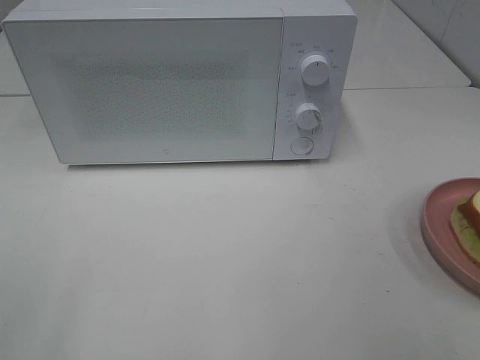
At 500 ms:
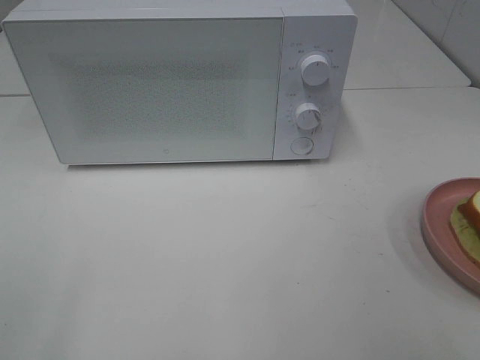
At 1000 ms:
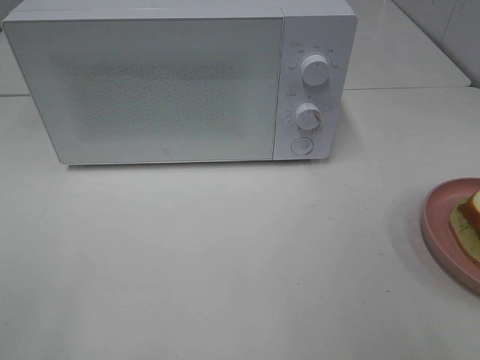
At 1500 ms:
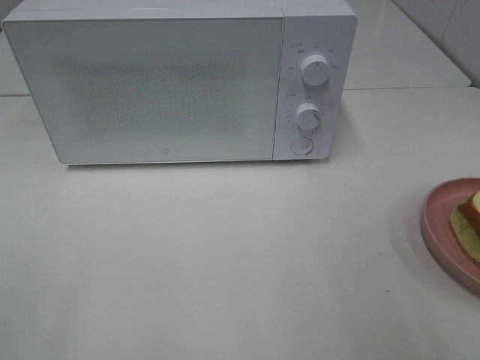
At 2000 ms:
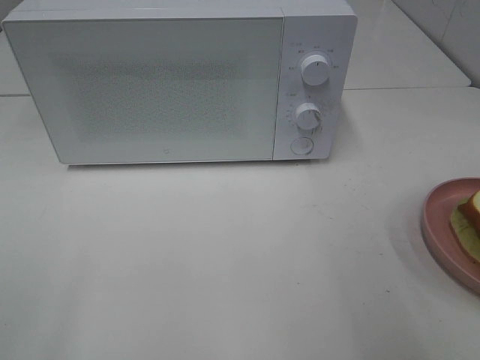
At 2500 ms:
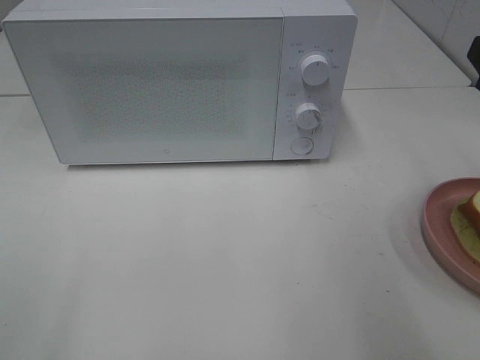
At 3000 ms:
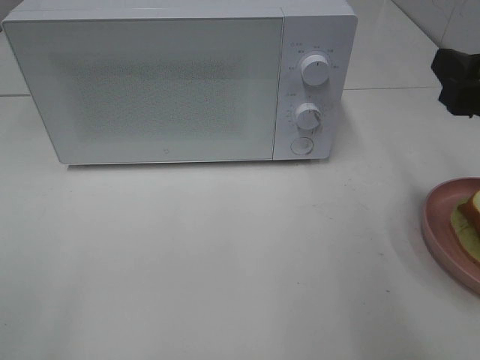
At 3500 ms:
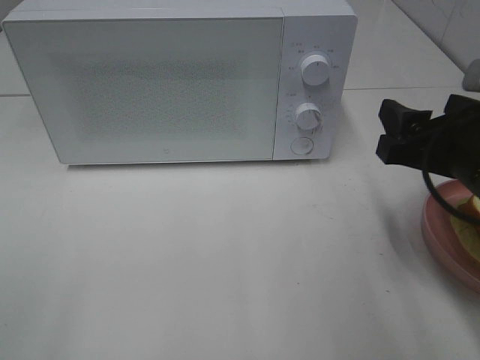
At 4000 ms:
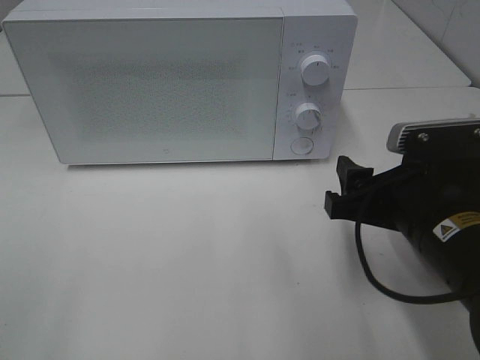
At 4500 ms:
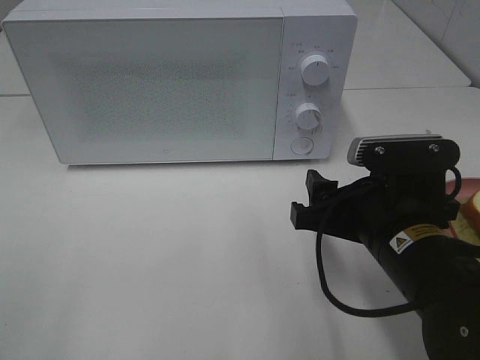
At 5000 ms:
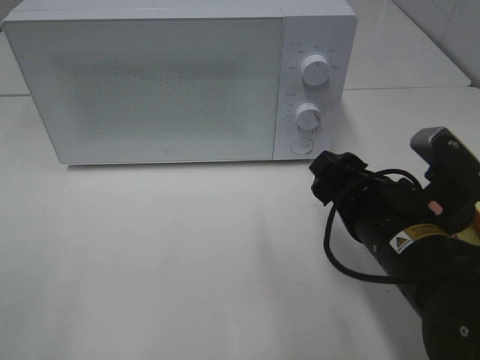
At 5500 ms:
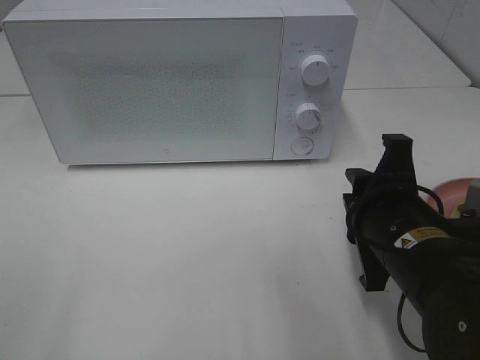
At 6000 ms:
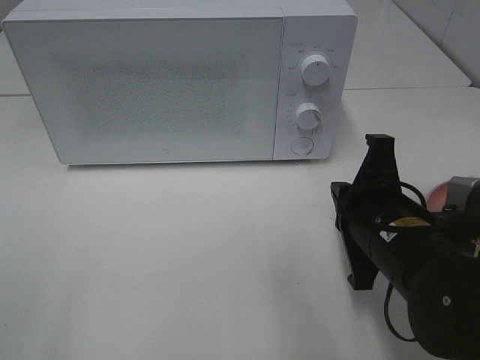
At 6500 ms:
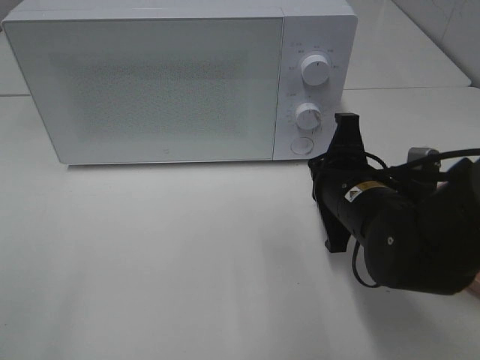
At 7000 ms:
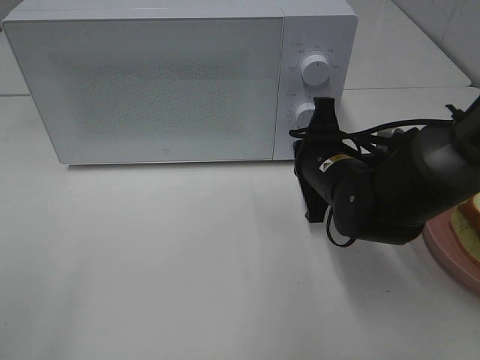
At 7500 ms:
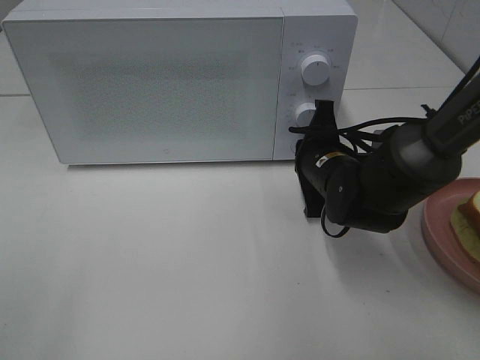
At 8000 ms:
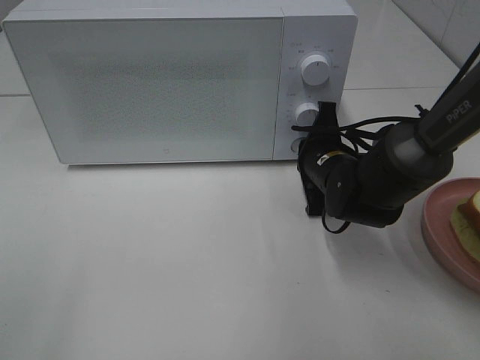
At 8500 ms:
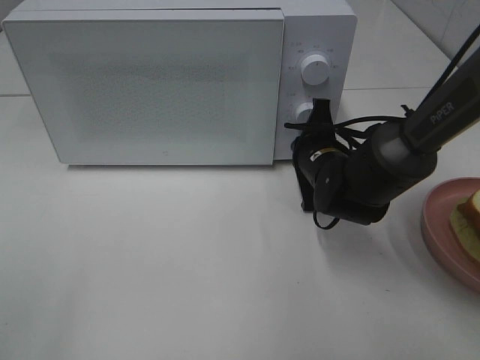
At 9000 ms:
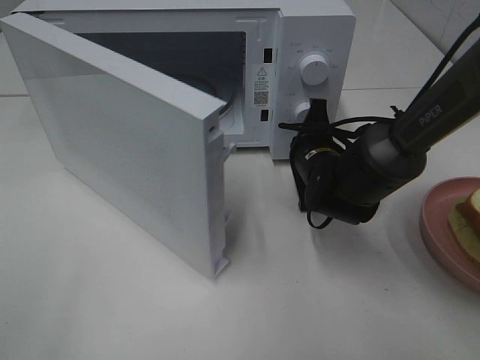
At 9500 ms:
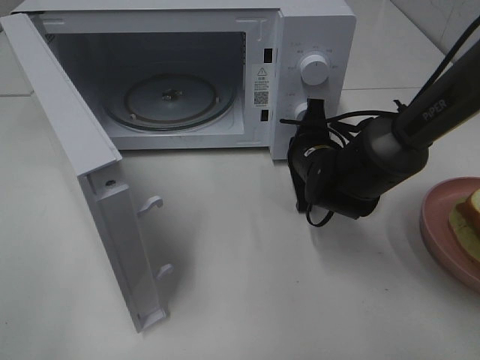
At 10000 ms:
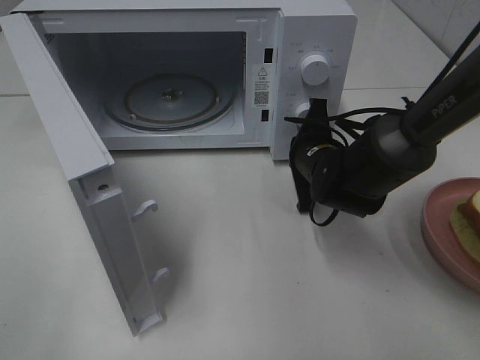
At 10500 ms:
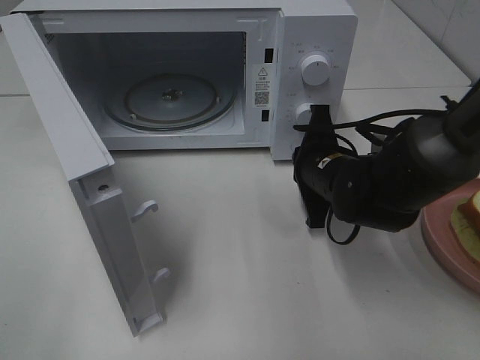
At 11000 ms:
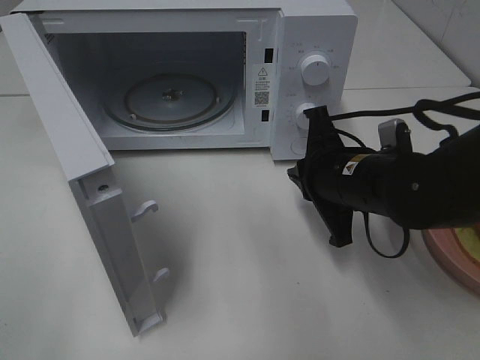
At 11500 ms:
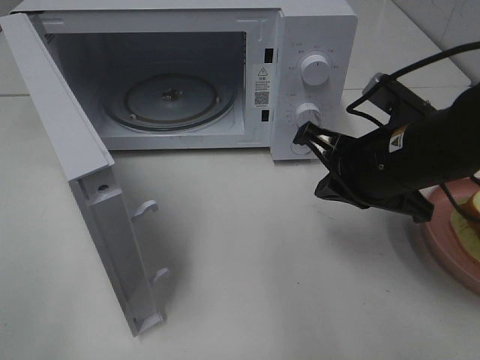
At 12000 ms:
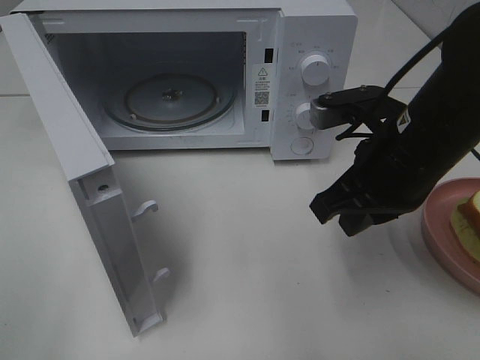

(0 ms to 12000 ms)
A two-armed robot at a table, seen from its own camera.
Task of the whole recording: Heat Sandwich.
Step, 0 ms - 10000 ms: Right hand: press the switch.
2000 ms - 4000 ms: The right gripper heads downward and to the left, covering some 15 cm.
4000 ms - 6000 ms: The right gripper closes.
6000 ms - 8000 ms: The right gripper is displaced forward by about 15 cm.
10000 ms - 12000 ms: The right gripper moves upward and backward, approximately 15 cm.

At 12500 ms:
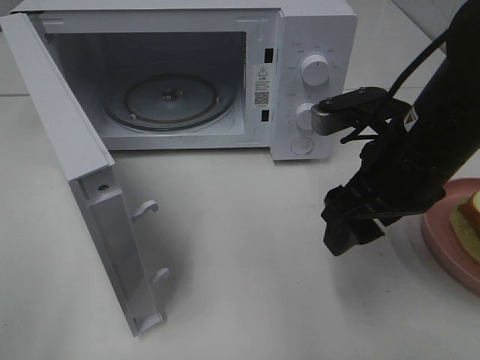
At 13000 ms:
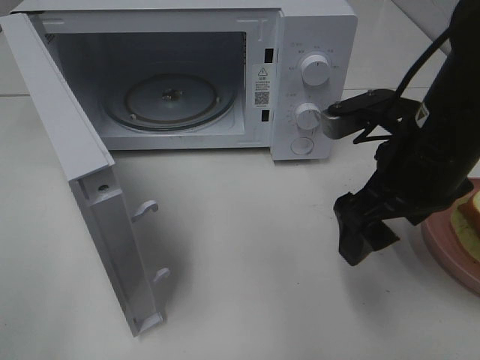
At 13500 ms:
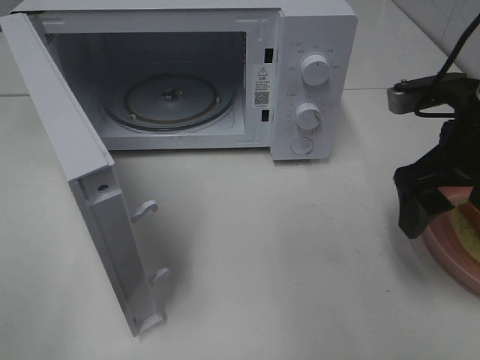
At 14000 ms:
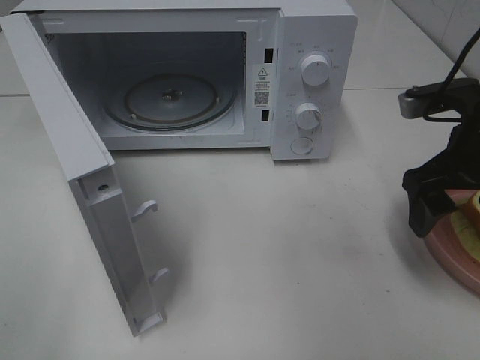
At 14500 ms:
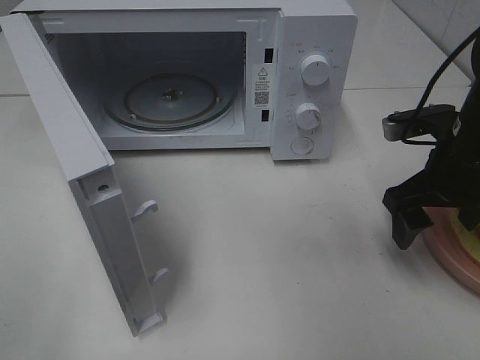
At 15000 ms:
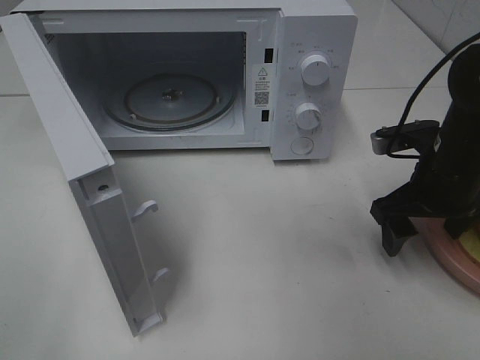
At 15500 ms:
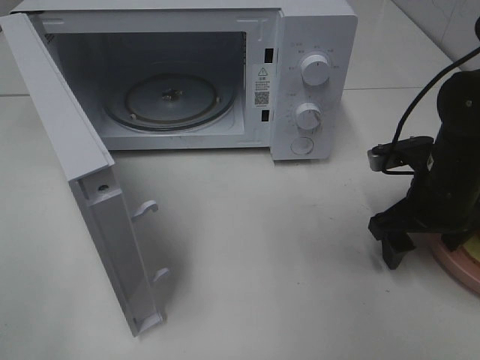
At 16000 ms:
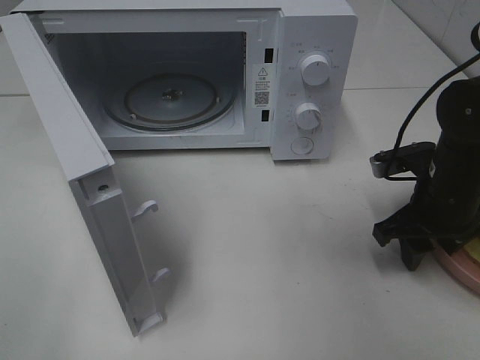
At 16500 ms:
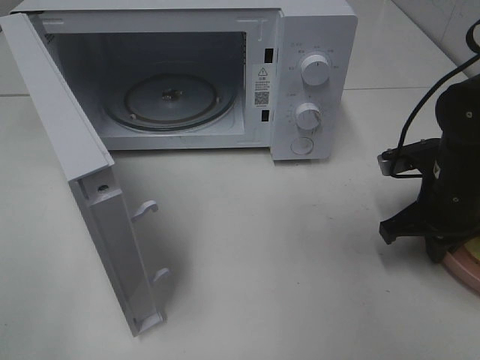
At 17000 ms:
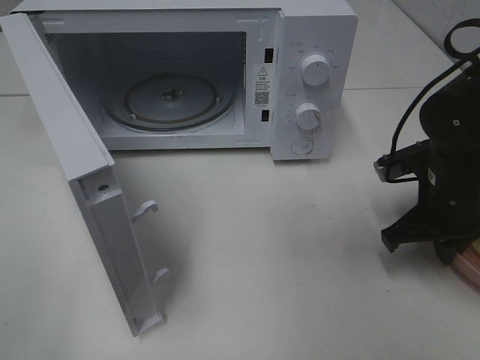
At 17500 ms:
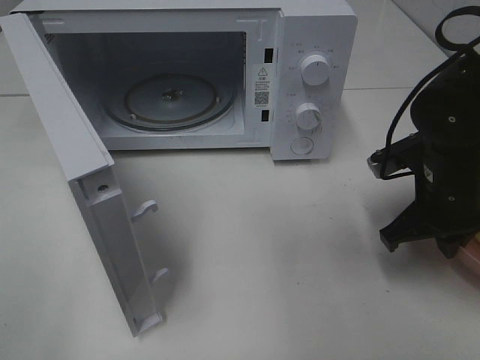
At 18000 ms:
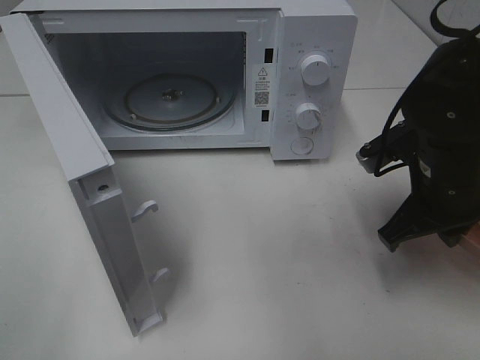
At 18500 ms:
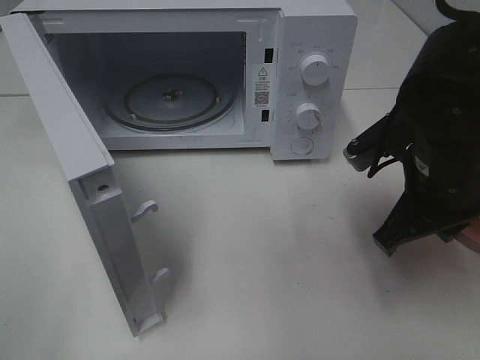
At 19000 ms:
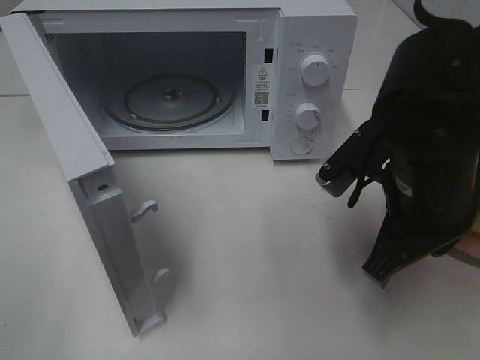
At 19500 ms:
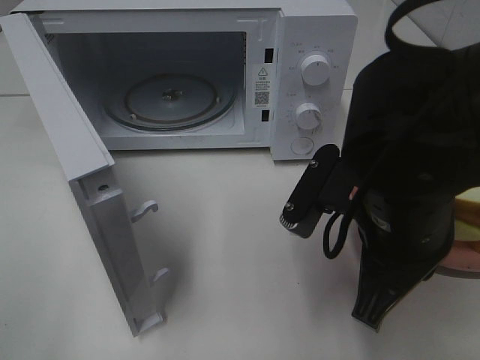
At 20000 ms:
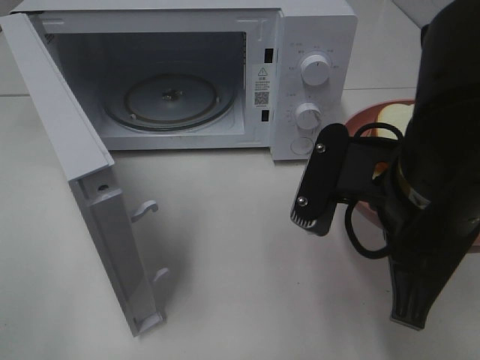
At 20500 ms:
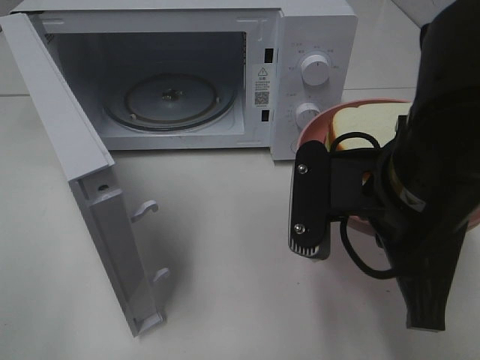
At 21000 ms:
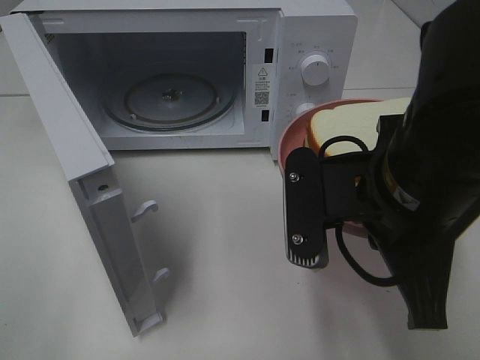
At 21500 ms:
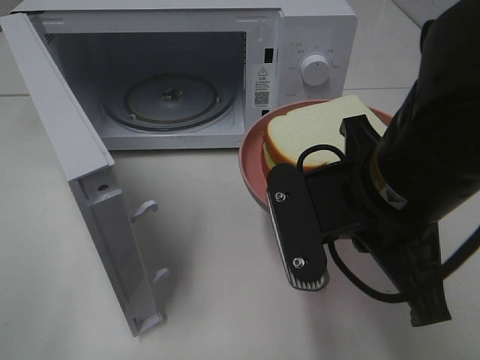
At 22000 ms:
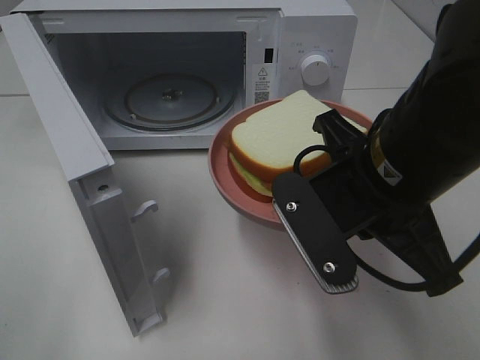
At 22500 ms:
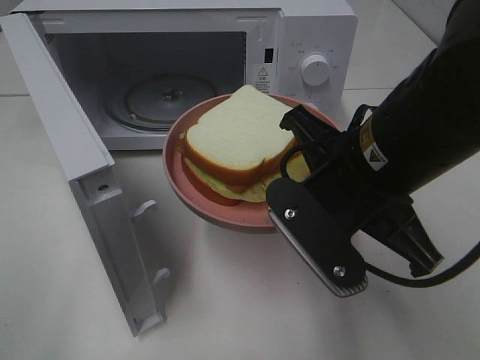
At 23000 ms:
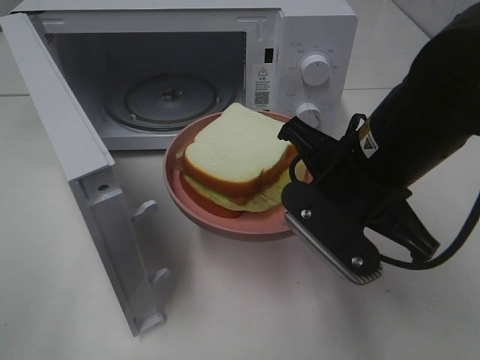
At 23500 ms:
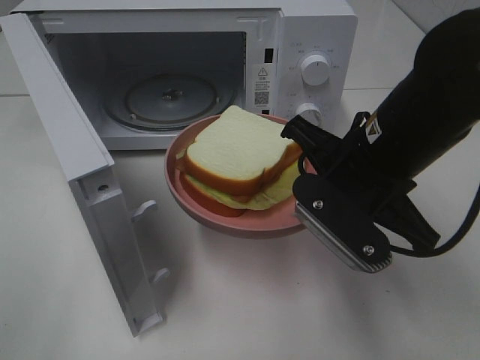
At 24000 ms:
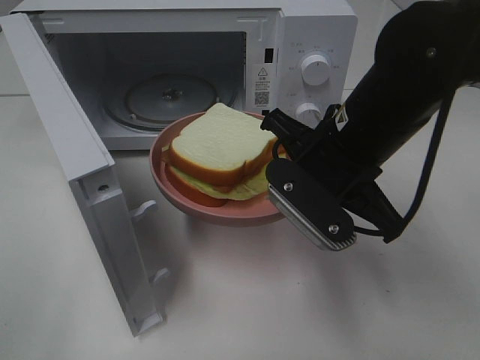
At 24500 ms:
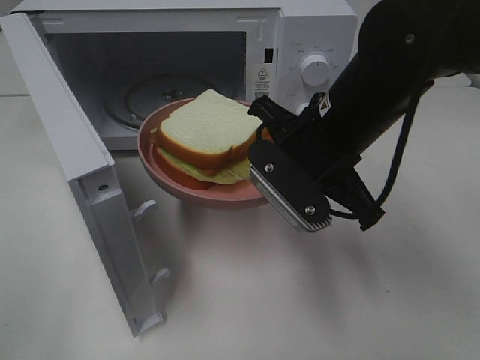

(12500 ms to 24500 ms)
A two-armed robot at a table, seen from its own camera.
Task of the whole recording: Heat Sandwich.
Step, 12500 ms - 16500 ms: Right hand: grab the plate with the sandwich.
12500 ms - 14500 ms: The right gripper travels to the right by some 10 cm.
14500 ms - 16500 ms: The right gripper moves downward, some 5 cm, and closes.
16500 ms - 18500 ms: The right gripper shifts about 10 cm upward and to the left.
18500 ms - 20500 ms: The right gripper moves backward and to the left, roughly 10 cm.
22500 ms - 24500 ms: The right gripper heads forward, covering approximately 5 cm.

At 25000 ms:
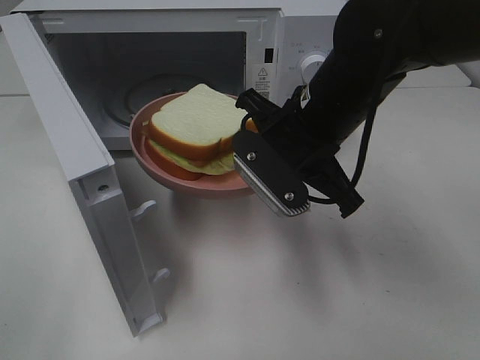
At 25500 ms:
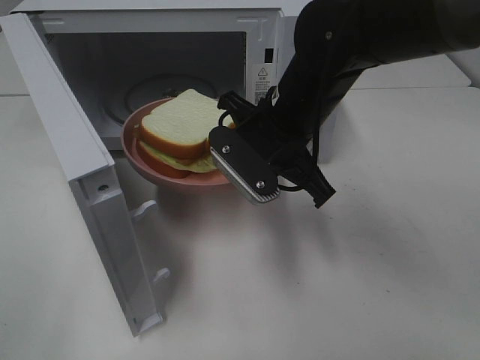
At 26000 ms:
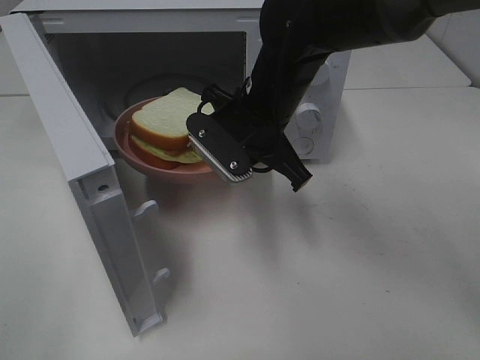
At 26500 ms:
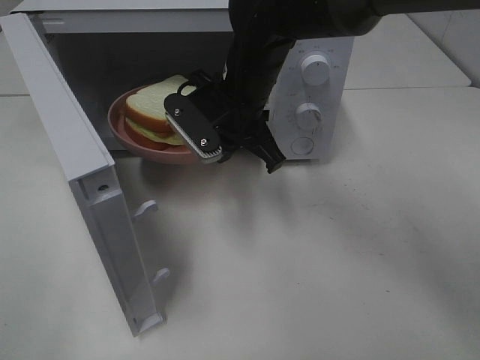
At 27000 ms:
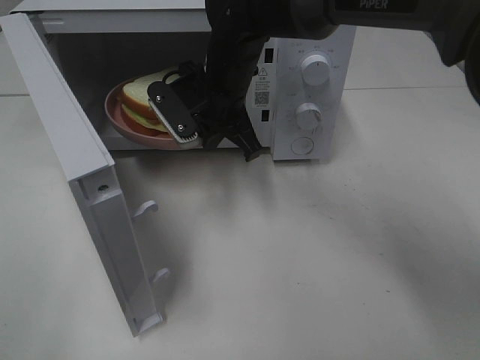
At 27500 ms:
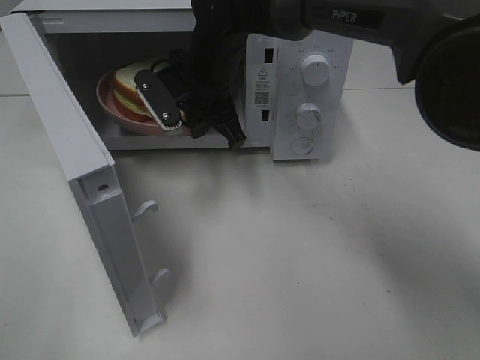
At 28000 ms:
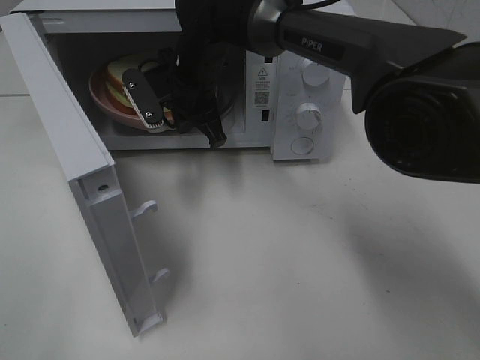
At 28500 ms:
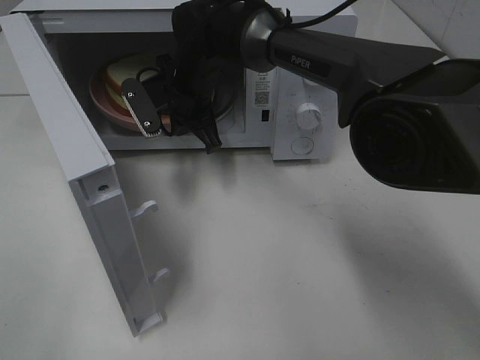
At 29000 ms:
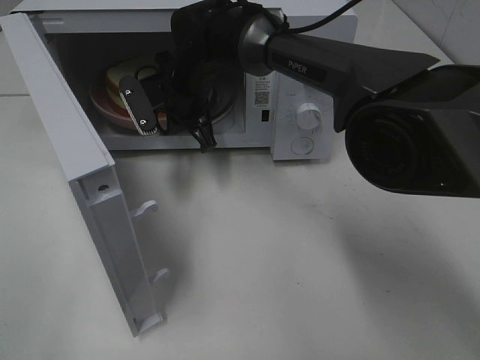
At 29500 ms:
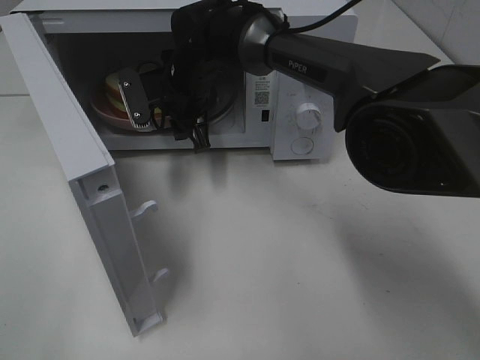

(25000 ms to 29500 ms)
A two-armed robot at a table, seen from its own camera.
Task of the whole recording: Heat Sandwich.
25000 ms - 27000 ms: The right gripper is displaced forward and to the left by some 15 cm.
27000 ms - 29500 ms: The right gripper shifts approximately 5 cm forward, and opens its fingers.
